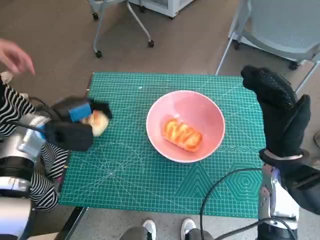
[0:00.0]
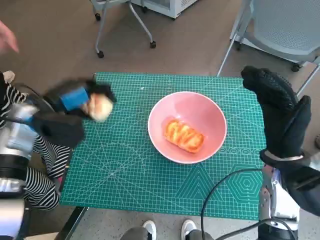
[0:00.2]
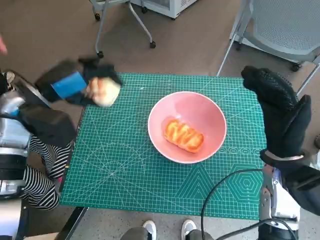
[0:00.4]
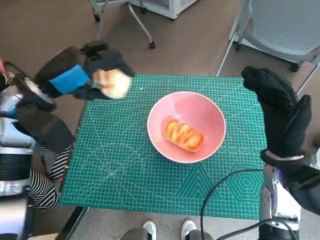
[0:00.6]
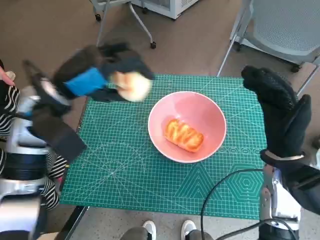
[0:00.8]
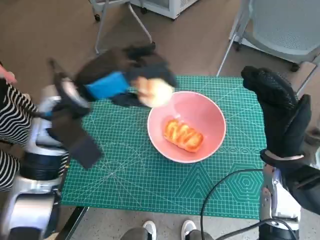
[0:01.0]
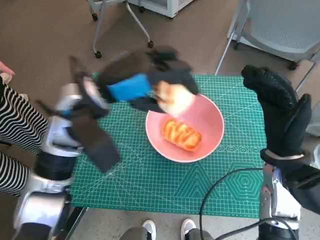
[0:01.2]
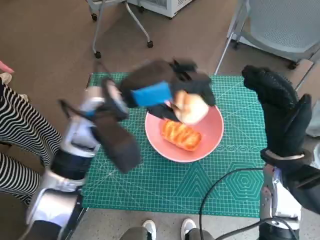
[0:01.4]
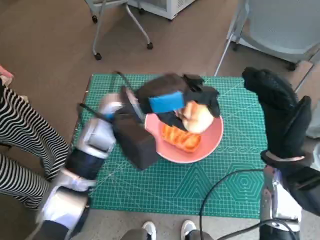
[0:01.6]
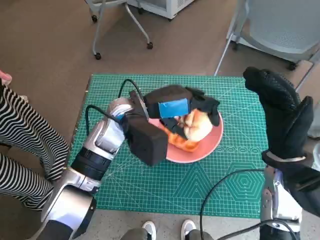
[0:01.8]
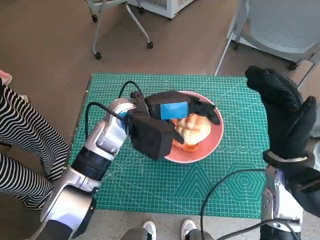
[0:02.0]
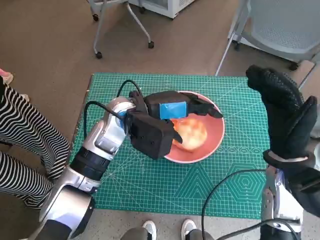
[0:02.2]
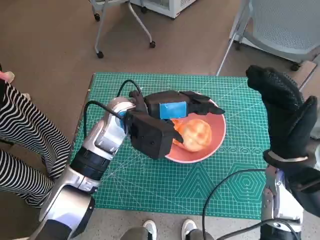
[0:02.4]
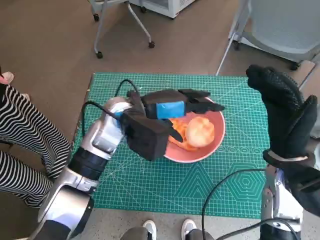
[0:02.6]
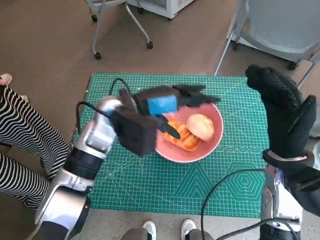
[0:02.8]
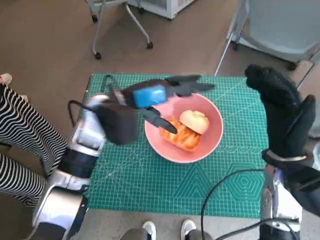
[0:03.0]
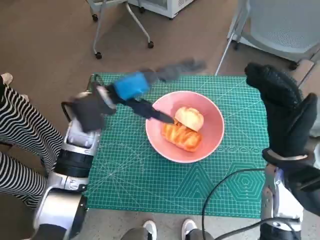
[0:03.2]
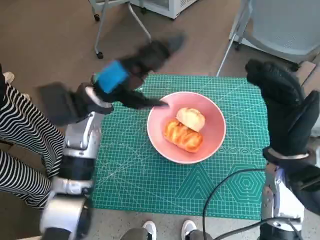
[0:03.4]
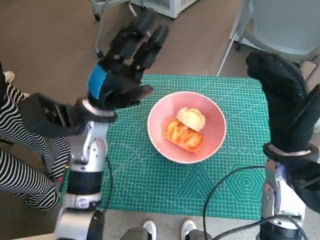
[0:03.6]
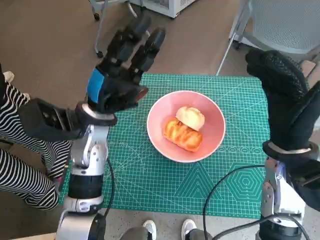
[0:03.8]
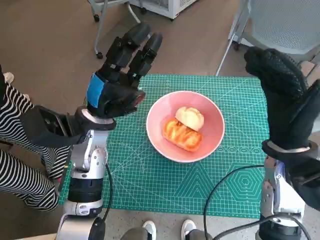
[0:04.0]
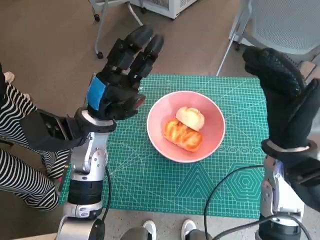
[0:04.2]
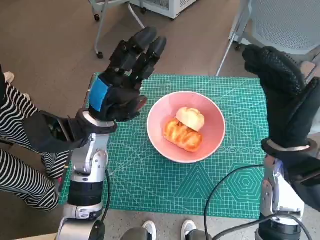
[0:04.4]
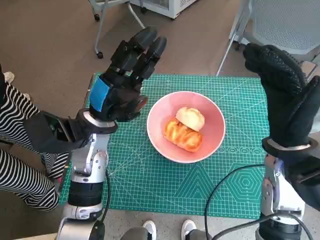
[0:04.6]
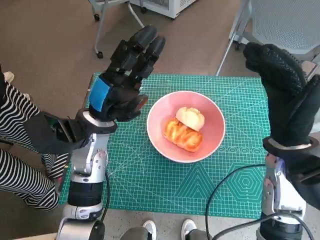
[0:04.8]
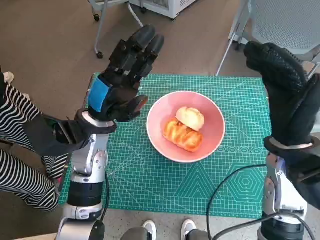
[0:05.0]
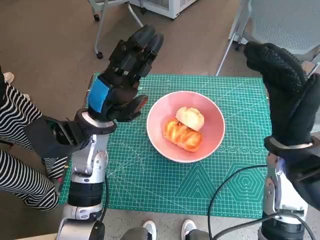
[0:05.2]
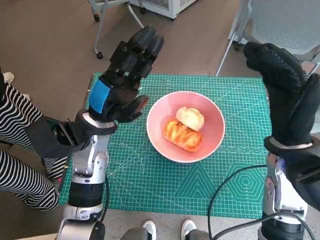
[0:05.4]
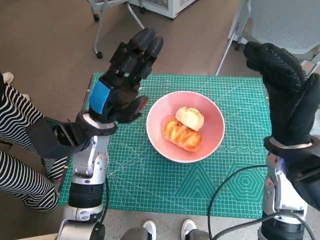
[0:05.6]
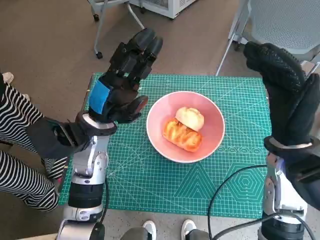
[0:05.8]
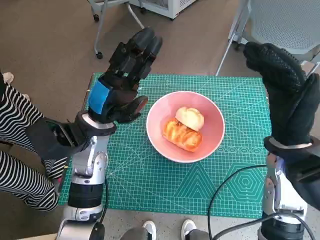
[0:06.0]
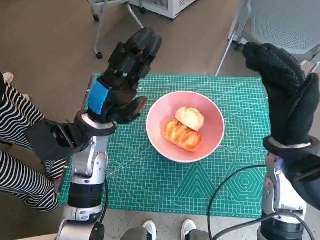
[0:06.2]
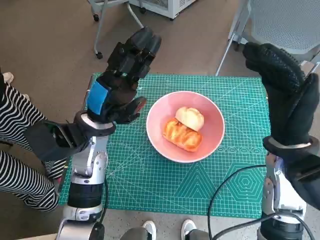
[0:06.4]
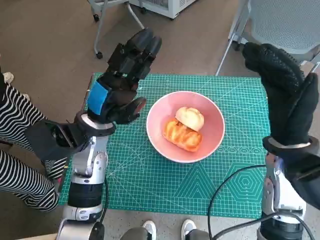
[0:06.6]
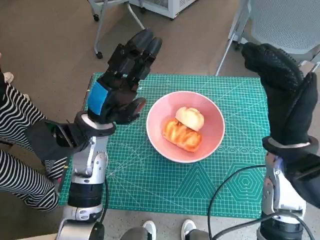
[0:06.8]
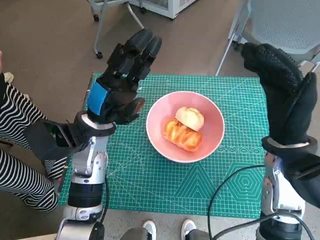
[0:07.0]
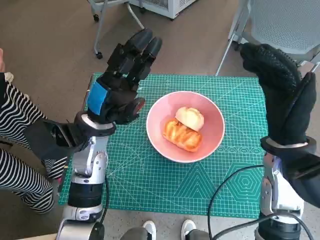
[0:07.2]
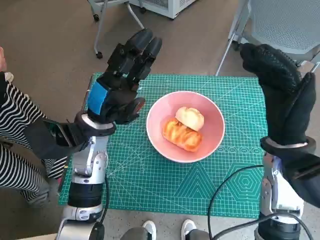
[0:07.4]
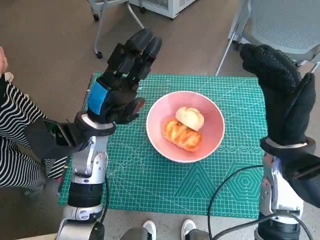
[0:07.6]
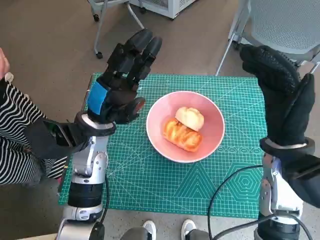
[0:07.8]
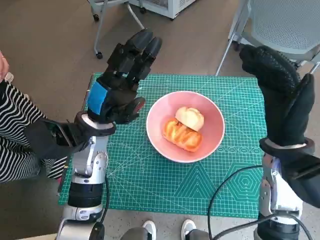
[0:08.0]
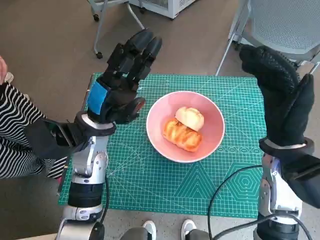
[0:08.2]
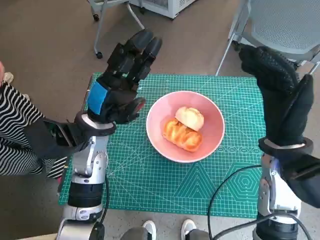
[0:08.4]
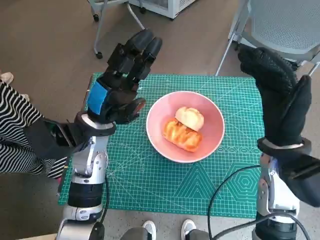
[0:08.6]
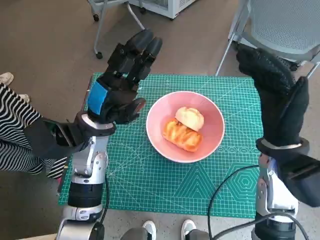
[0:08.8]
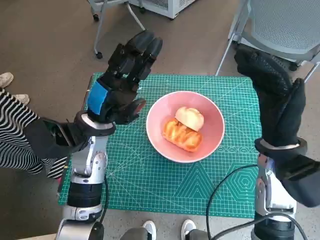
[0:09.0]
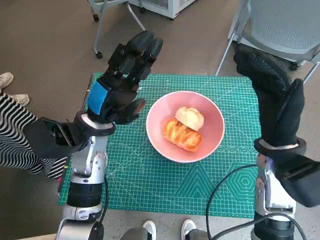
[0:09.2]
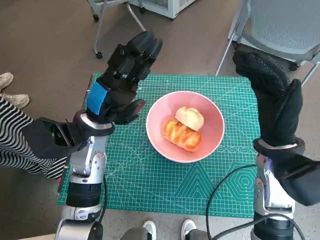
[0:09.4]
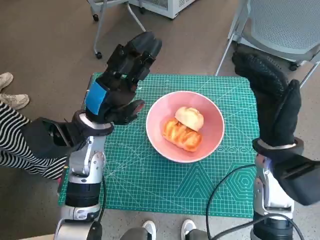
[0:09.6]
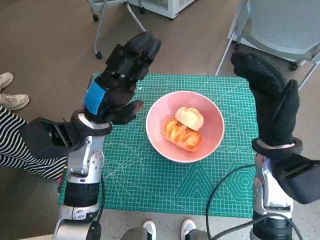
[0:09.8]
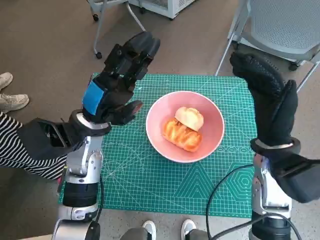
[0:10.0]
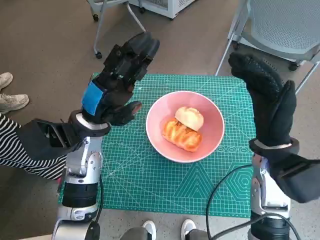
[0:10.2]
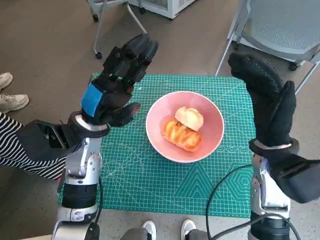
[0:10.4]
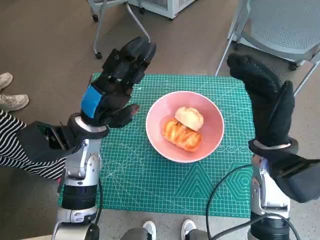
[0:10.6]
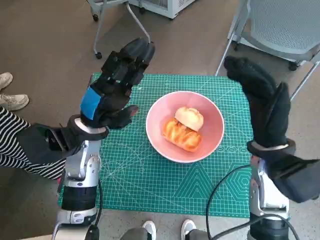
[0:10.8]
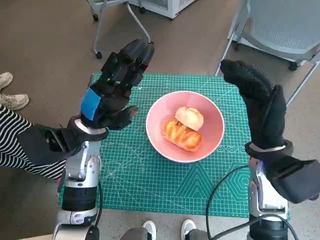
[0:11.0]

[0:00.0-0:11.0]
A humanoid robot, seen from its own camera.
Task of the whole recording: Push the bowl into the center of the table and put the bread into the bowl.
Step, 0:00.0 to 0:02.6: Place the round bread in pink bowl with left hand.
0:00.0 to 0:01.6: The left hand shifts roughly 20 cm to the right and upward.
0:01.6 to 0:03.2: The left hand ends up some 5 cm from where it was.
0:04.8 to 0:07.8: The two hands keep their place.
0:07.8 to 0:09.4: Both hands stay put.
0:09.4 to 0:11.0: There are only small adjustments of the hands.
